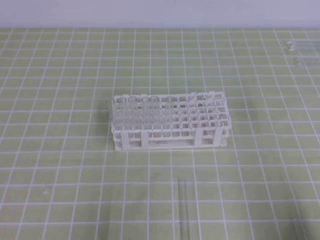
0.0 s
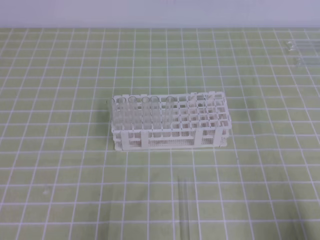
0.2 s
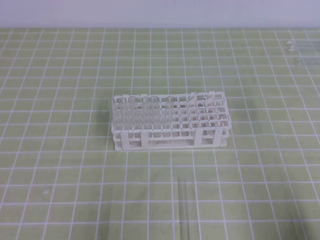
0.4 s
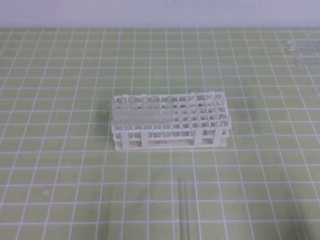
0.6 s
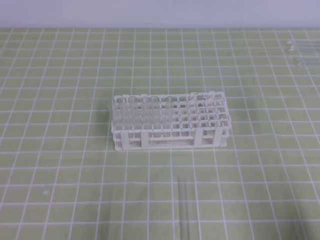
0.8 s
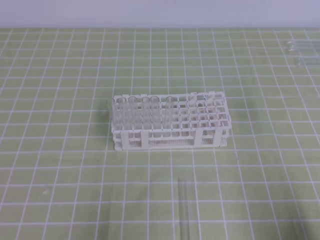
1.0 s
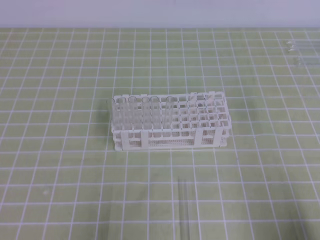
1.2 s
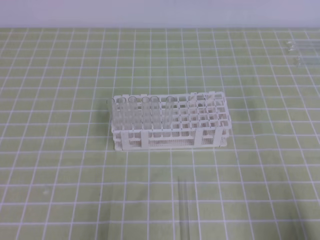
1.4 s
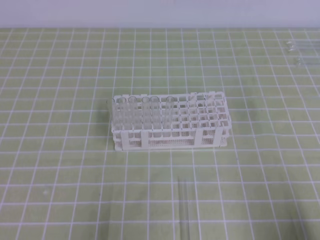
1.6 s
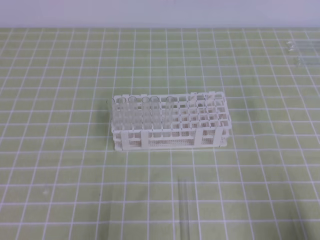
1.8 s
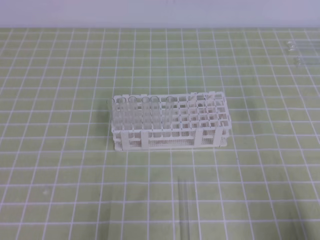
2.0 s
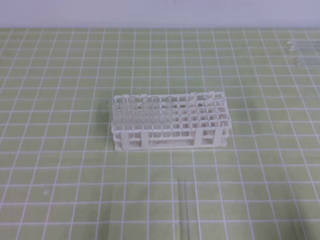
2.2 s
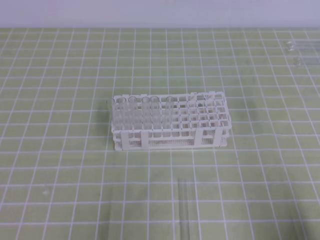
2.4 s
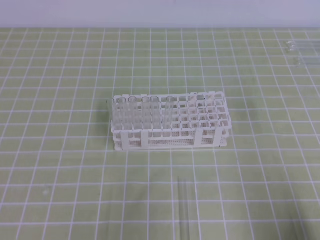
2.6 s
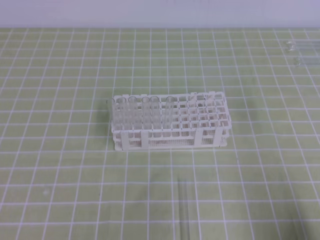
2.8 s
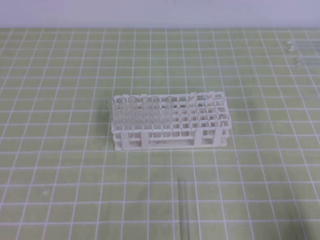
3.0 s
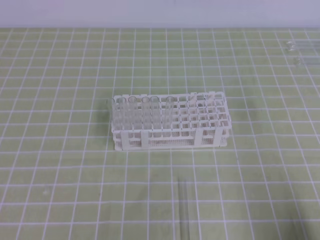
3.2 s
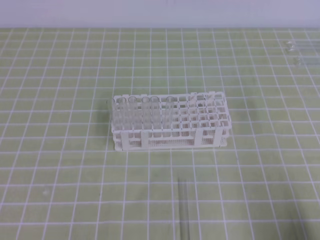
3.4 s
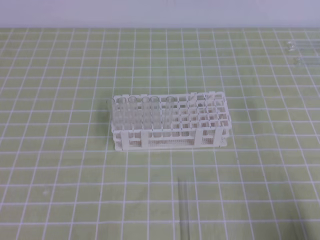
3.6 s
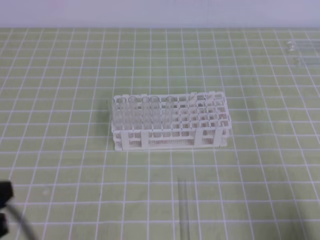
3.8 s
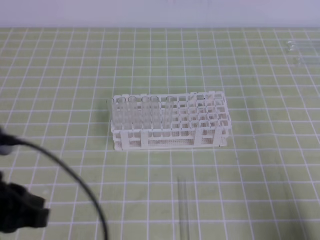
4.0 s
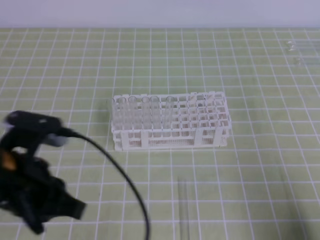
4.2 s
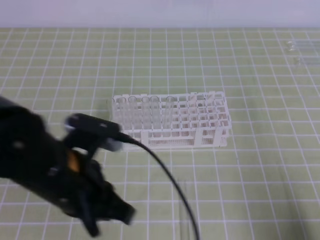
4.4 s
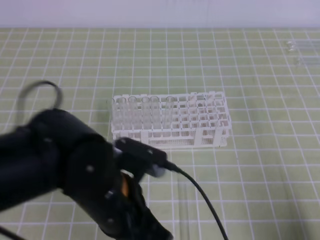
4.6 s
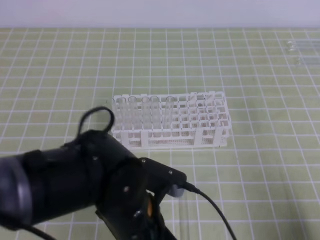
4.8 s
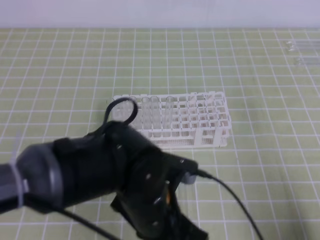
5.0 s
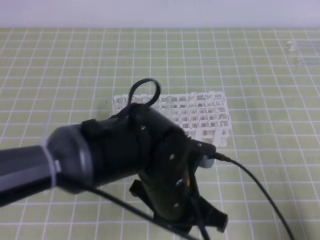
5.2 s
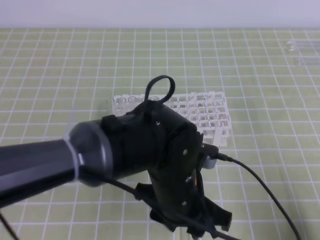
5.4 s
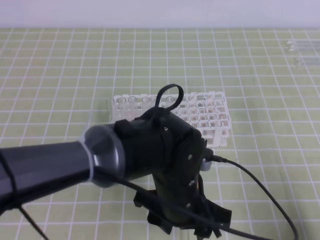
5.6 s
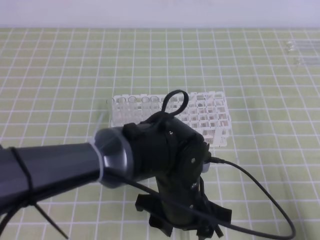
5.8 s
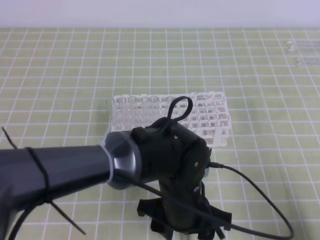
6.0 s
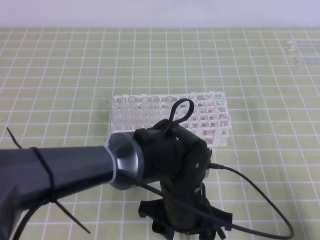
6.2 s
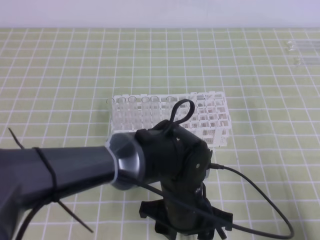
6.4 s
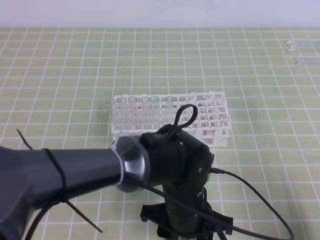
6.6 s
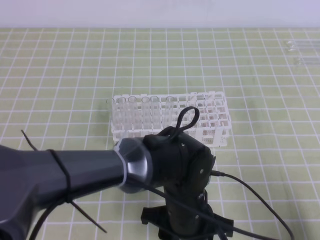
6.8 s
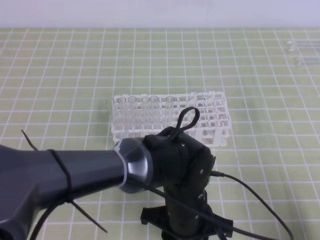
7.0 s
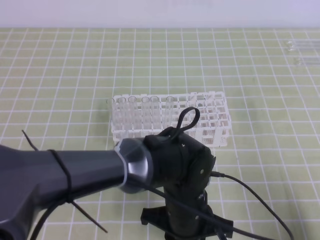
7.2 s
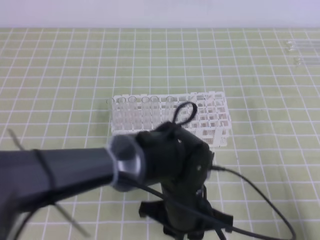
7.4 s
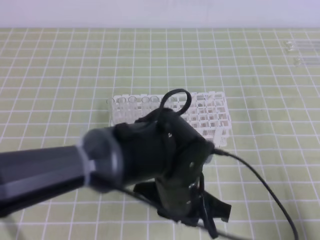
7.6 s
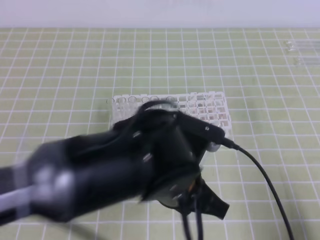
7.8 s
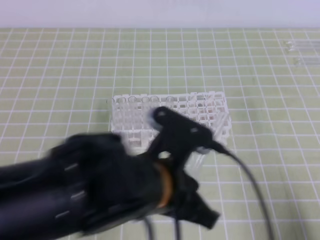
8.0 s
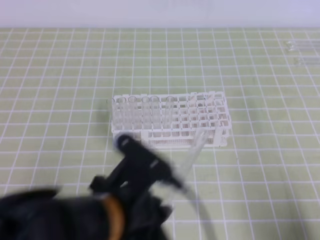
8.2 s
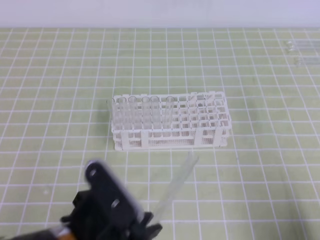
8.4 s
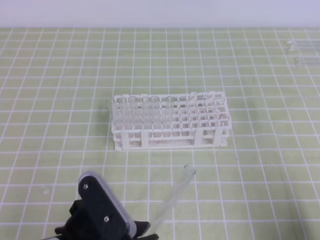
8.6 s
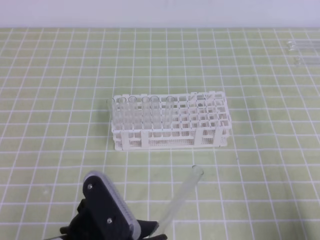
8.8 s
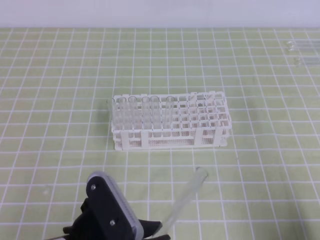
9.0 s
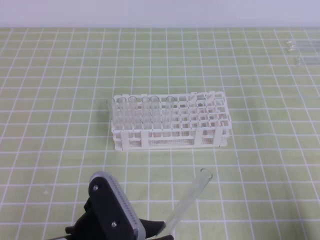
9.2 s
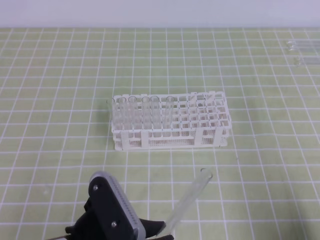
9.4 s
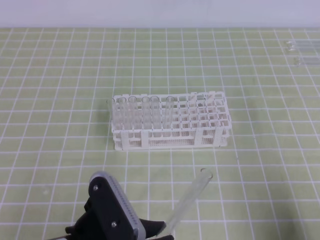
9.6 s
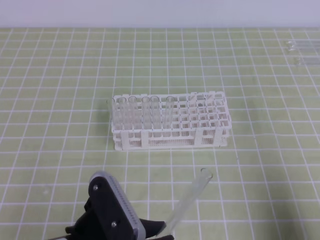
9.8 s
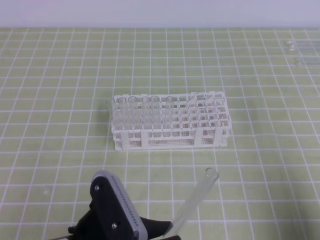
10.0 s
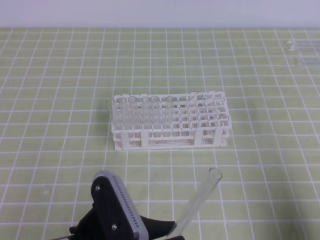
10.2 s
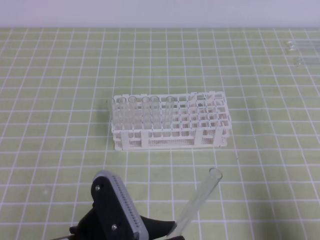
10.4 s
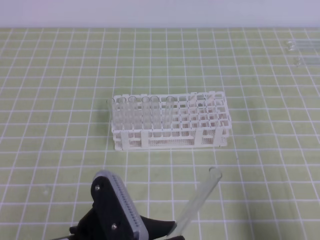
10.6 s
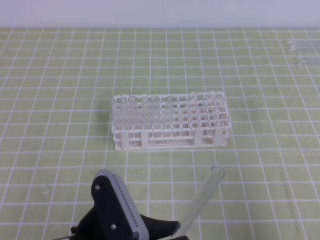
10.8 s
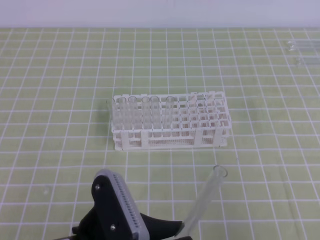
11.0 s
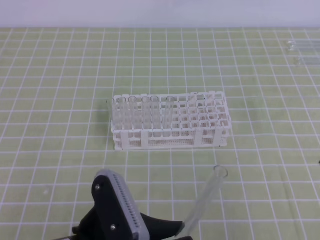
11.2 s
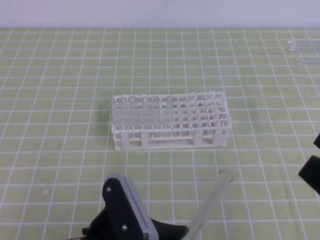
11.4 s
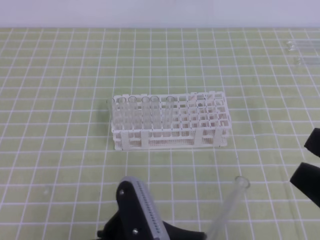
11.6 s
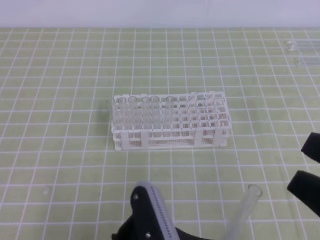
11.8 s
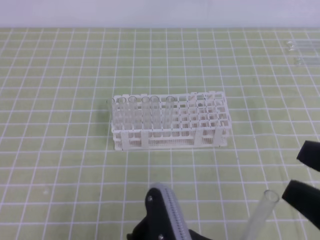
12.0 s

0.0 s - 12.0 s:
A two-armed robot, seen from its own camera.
0.0 s - 1.6 s: Both grippers stay about where they are.
3.0 s - 4.4 s: The left gripper is displaced to the right and forward by roughly 20 cm.
4.4 s - 6.0 s: The left gripper travels to the right and downward by some 20 cm, and opens its fingers.
6.0 s - 7.6 s: The left gripper closes.
7.6 s - 9.0 s: The left gripper heads to the left and backward, covering approximately 15 cm.
10.4 s - 12.0 s: The right gripper travels upward and to the left by about 15 cm, and opens up, while the left gripper goes approximately 5 cm to the right.

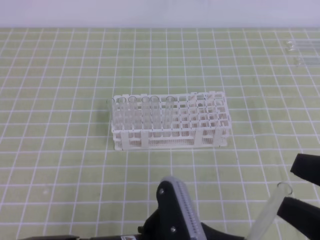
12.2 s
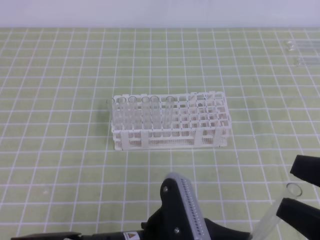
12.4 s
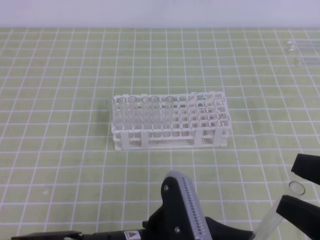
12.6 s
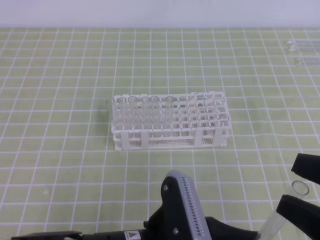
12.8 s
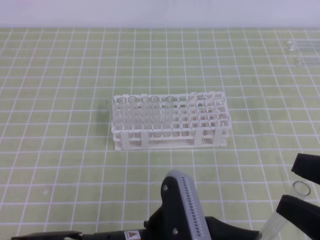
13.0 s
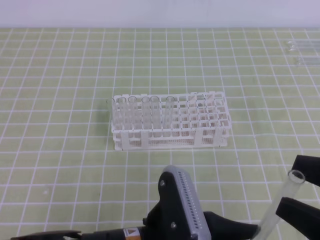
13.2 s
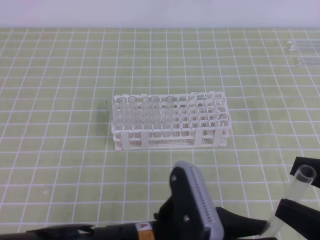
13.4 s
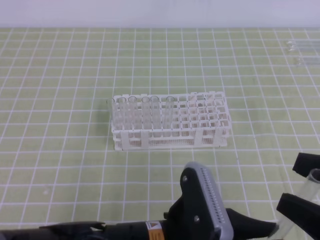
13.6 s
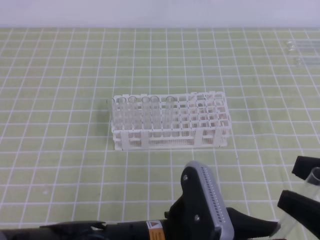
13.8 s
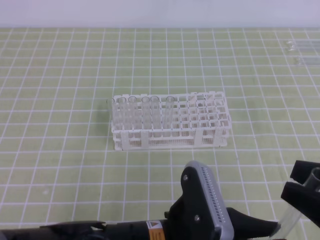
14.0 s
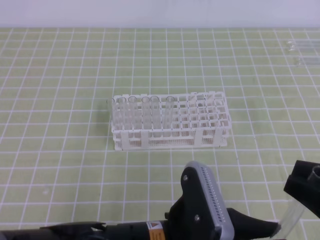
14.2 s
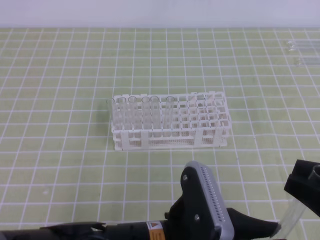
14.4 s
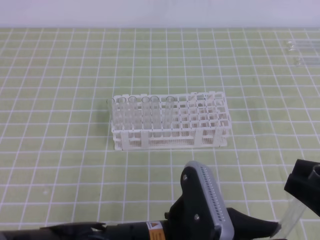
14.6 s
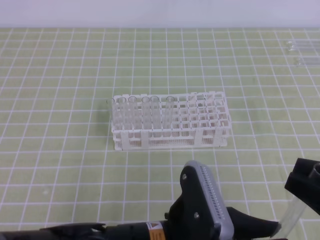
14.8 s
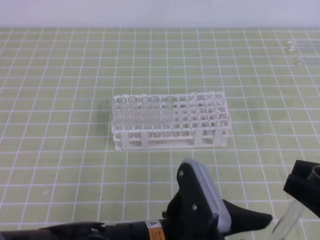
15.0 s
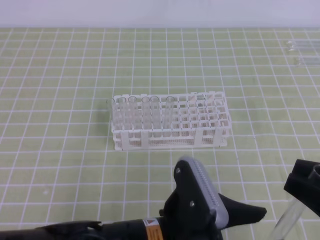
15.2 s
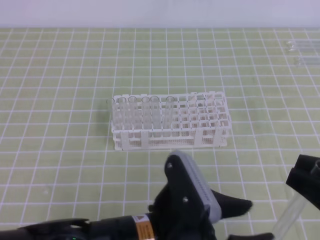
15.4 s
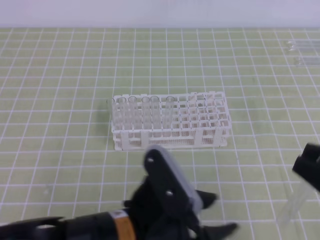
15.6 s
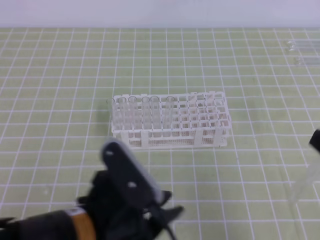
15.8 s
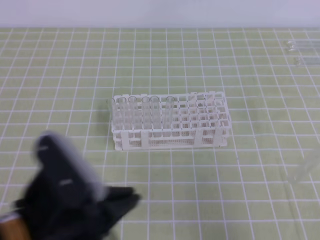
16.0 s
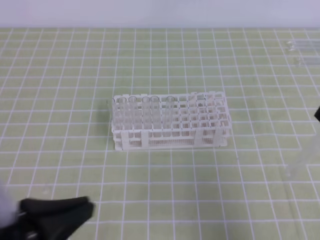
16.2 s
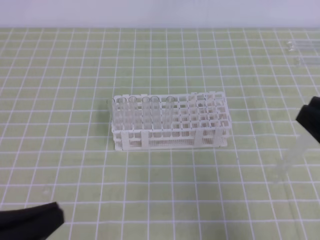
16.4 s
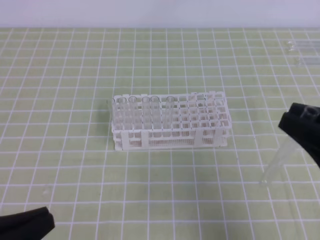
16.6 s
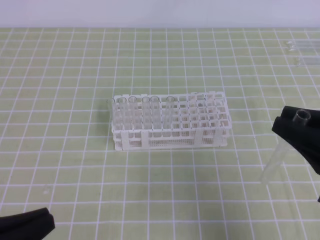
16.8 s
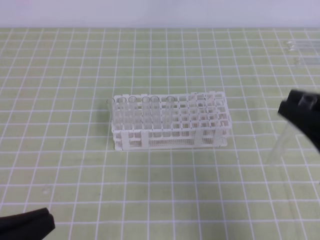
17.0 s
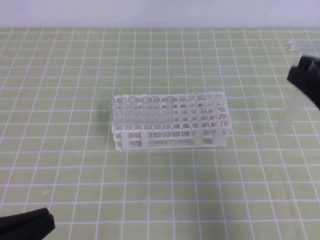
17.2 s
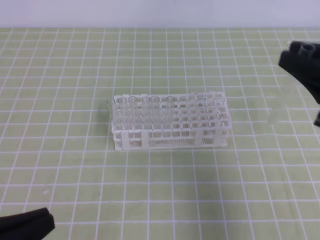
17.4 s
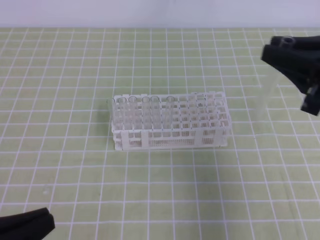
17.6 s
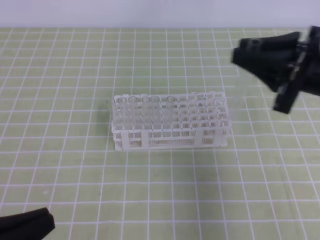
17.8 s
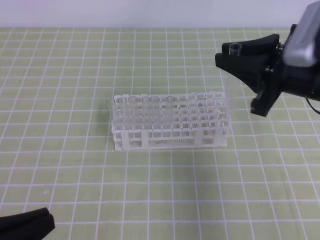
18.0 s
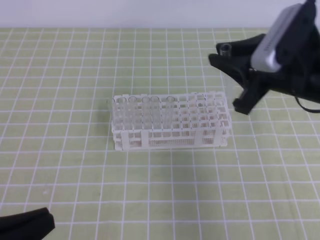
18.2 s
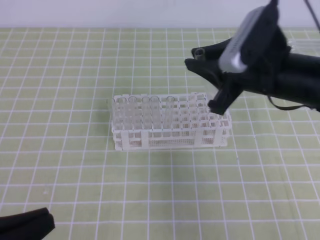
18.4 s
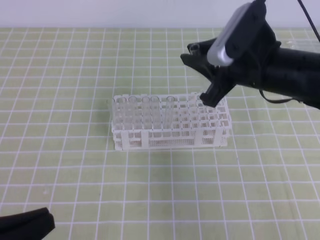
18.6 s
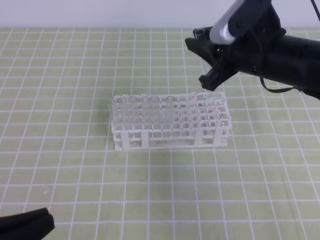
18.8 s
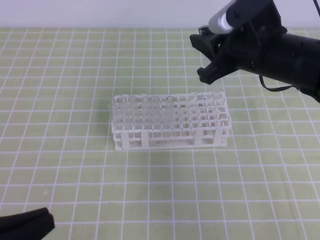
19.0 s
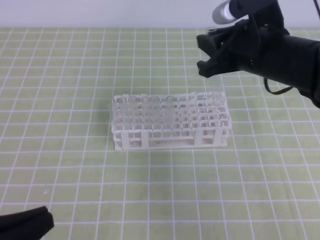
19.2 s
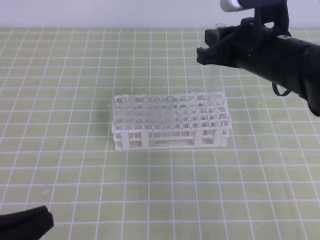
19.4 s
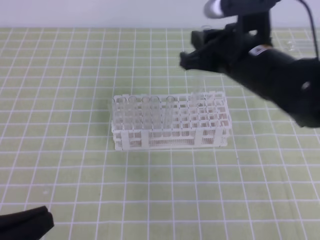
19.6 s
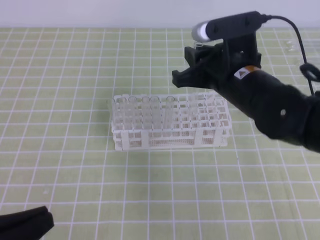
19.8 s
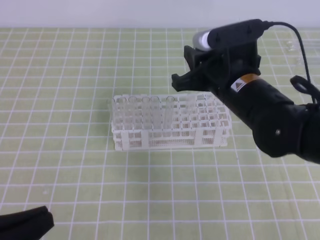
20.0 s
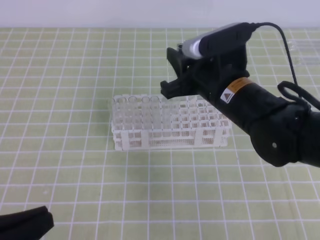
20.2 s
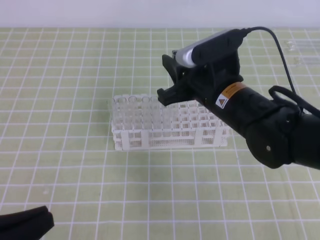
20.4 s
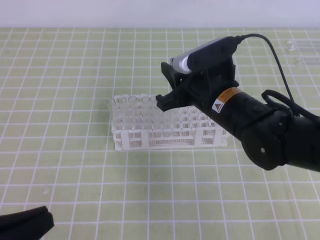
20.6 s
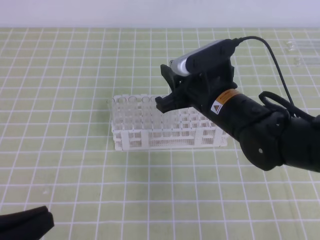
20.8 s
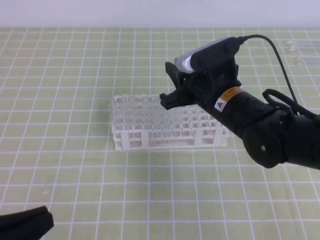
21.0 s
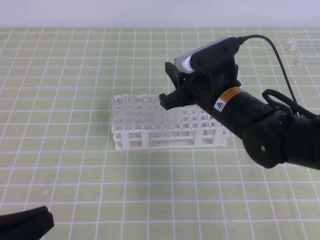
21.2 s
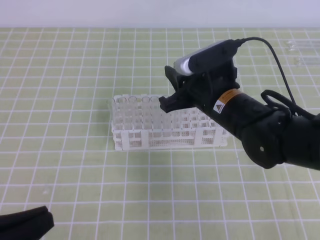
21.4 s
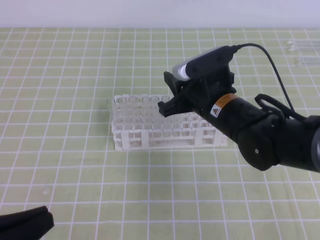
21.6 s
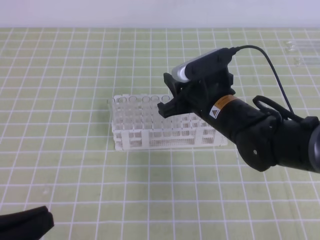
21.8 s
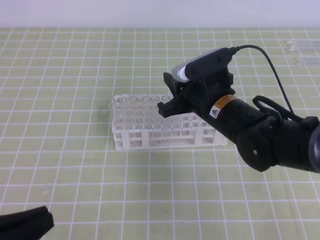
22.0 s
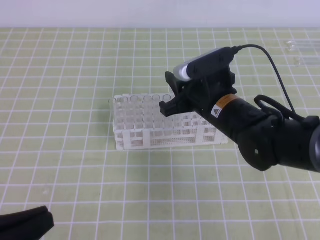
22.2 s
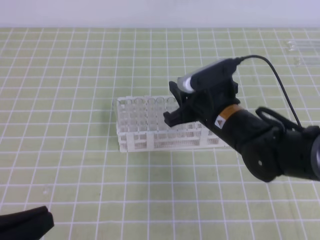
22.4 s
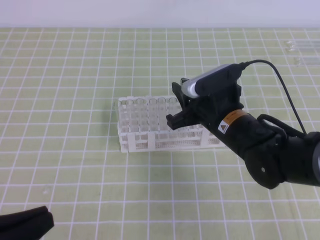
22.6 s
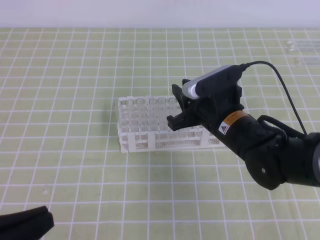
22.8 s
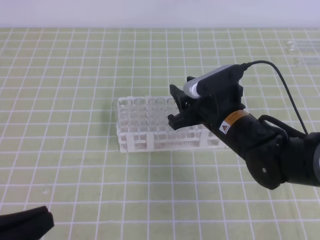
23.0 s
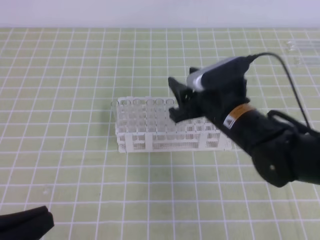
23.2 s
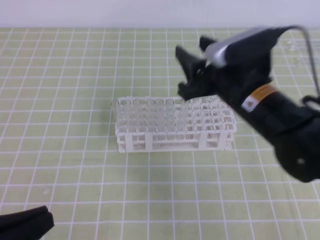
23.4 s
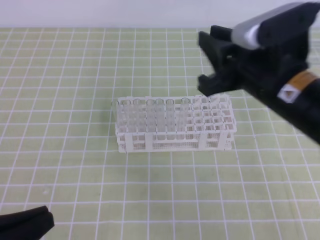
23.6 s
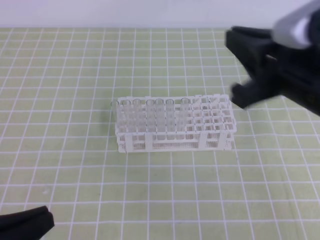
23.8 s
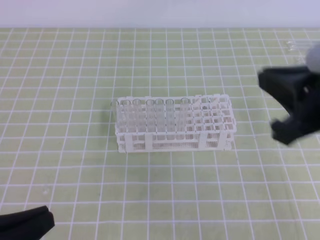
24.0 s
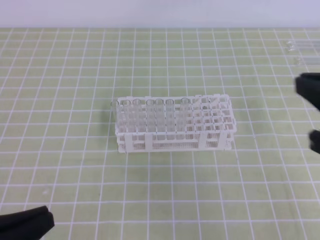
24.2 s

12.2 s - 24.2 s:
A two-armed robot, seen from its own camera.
12.2 s - 13.8 s: The grippers make only small movements.
13.8 s - 15.2 s: The left gripper opens. Meanwhile the right gripper closes.
15.2 s - 16.6 s: The left gripper goes about 20 cm to the left, and closes its fingers. Meanwhile the right gripper travels forward by approximately 5 cm.
16.6 s - 18.2 s: The right gripper travels forward and to the left by about 15 cm.
18.2 s - 19.8 s: The right gripper shifts roughly 5 cm to the left.
19.8 s - 21.2 s: The right gripper changes place by approximately 5 cm.
21.2 s - 22.6 s: The grippers stay close to where they were, moving slightly.
22.6 s - 24.2 s: The right gripper moves upward, backward and to the right, some 25 cm, and opens and closes again.
